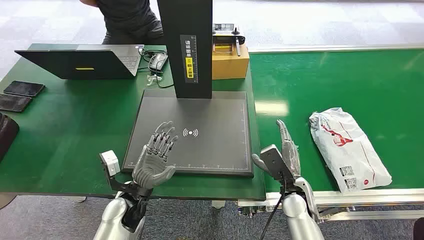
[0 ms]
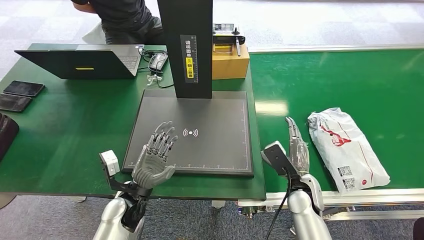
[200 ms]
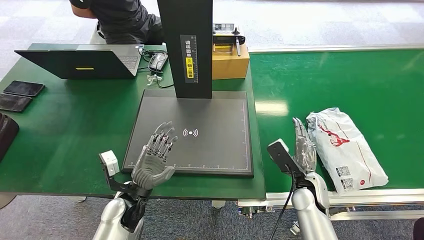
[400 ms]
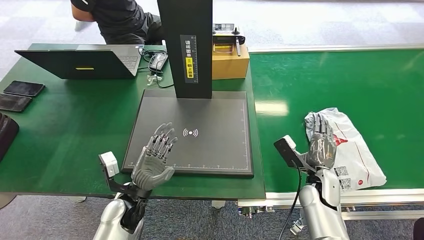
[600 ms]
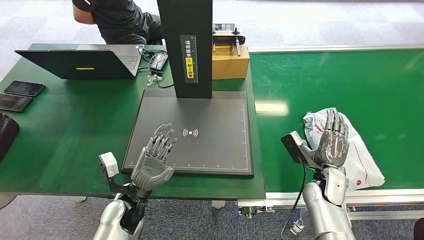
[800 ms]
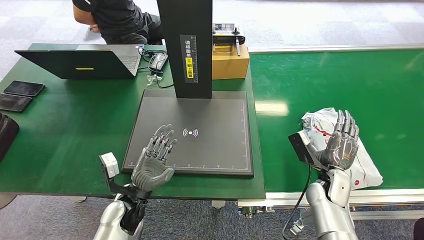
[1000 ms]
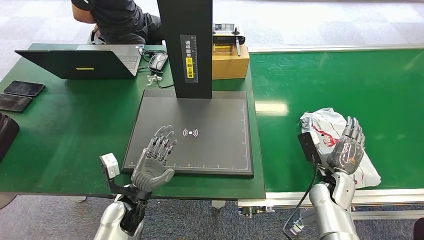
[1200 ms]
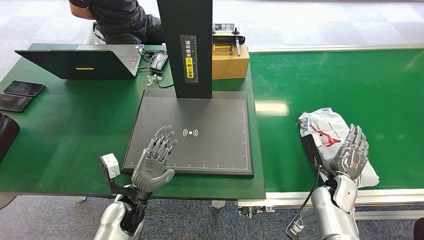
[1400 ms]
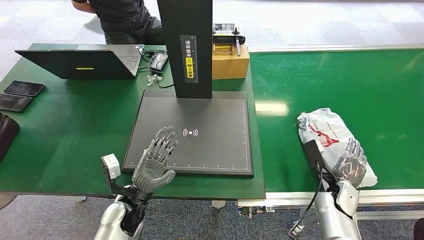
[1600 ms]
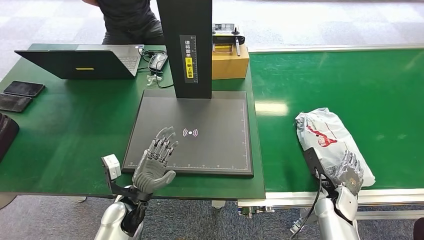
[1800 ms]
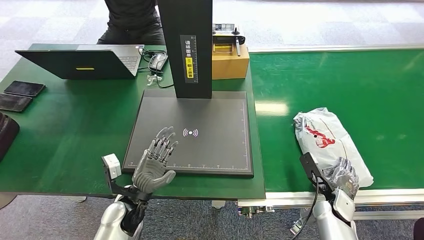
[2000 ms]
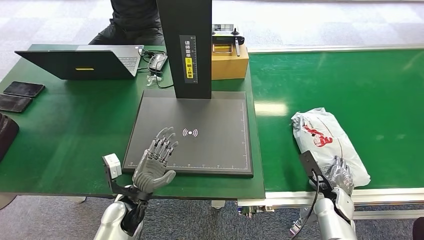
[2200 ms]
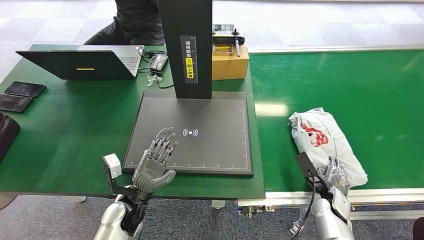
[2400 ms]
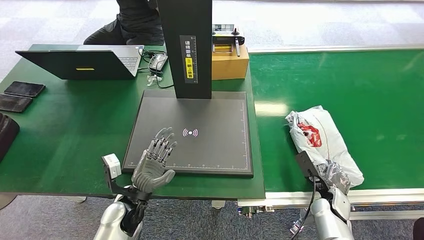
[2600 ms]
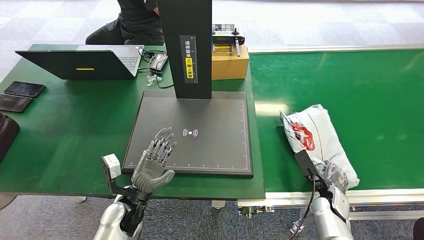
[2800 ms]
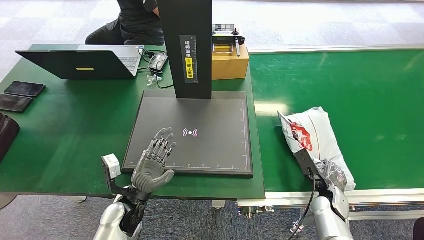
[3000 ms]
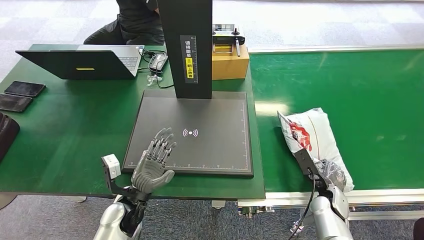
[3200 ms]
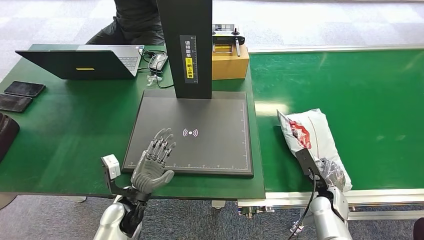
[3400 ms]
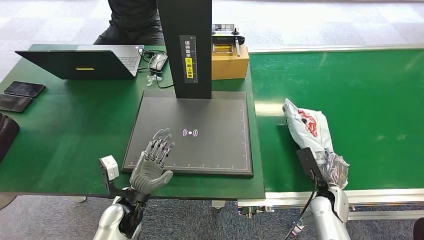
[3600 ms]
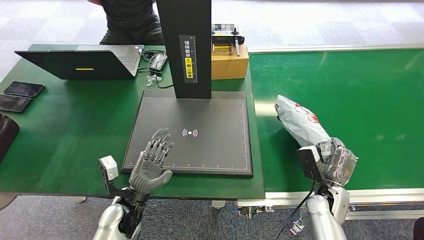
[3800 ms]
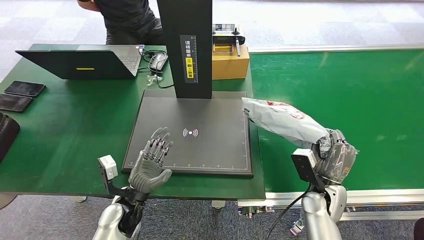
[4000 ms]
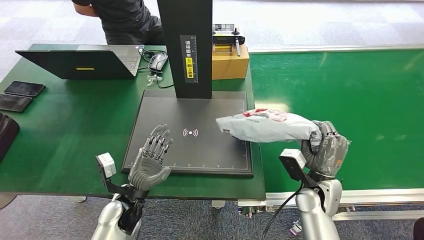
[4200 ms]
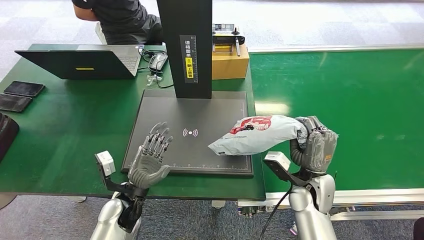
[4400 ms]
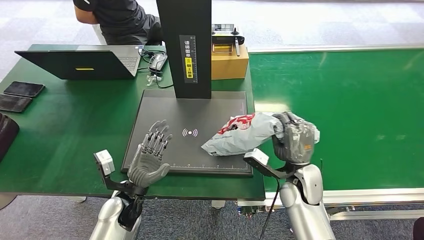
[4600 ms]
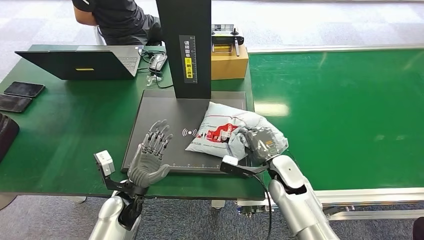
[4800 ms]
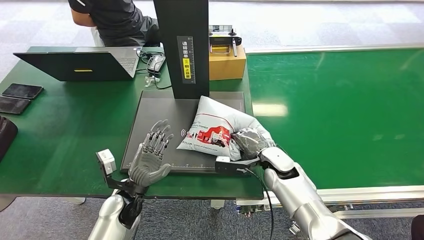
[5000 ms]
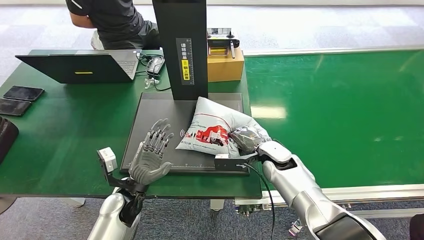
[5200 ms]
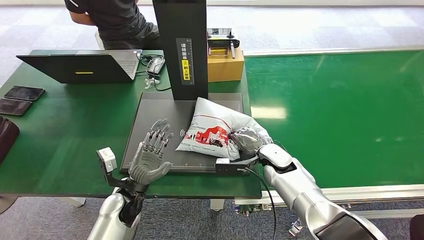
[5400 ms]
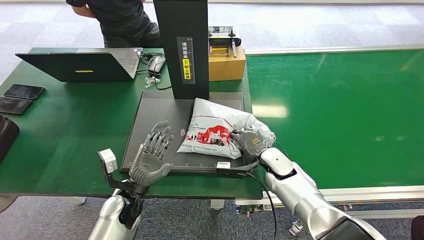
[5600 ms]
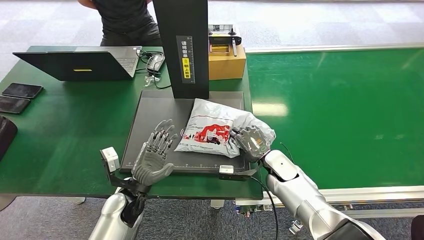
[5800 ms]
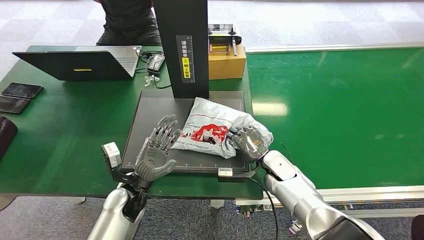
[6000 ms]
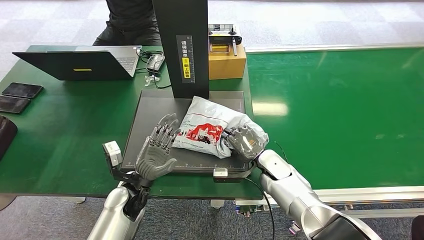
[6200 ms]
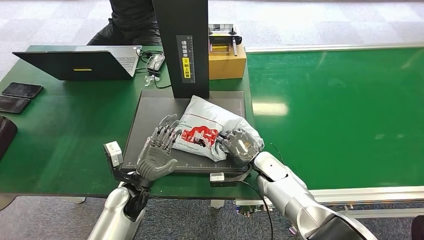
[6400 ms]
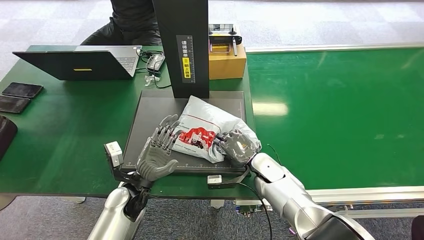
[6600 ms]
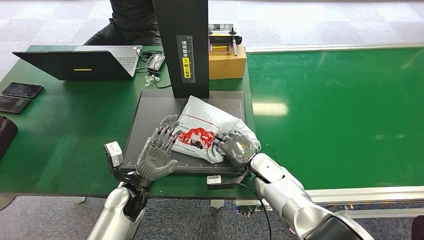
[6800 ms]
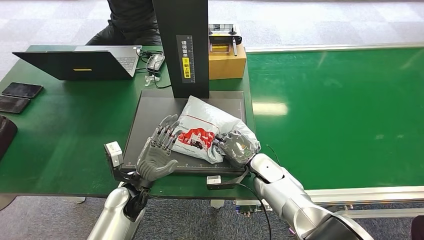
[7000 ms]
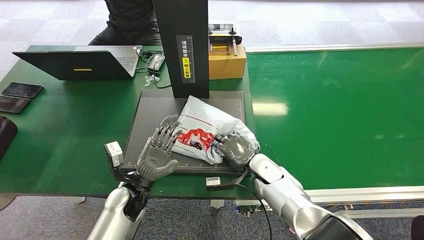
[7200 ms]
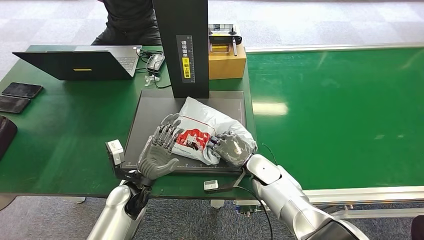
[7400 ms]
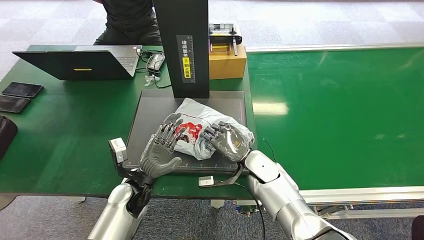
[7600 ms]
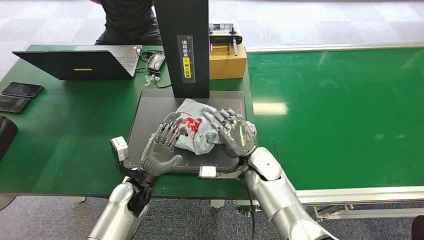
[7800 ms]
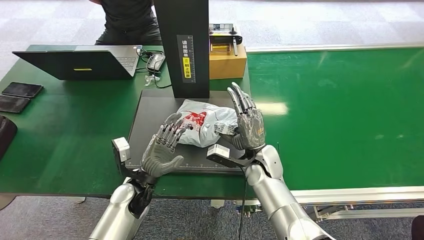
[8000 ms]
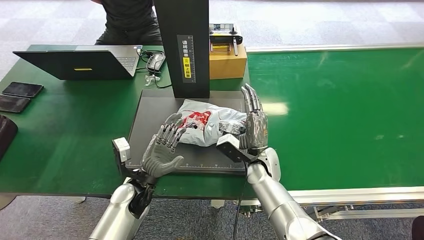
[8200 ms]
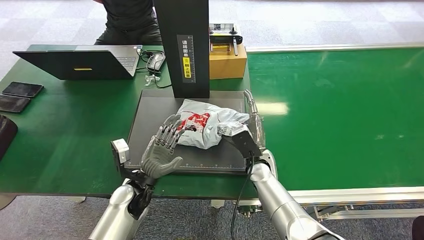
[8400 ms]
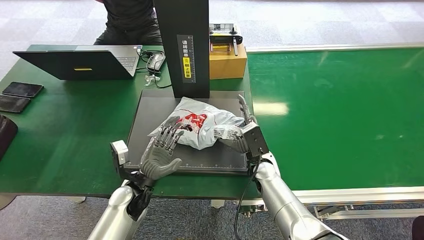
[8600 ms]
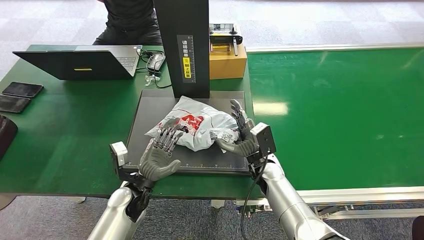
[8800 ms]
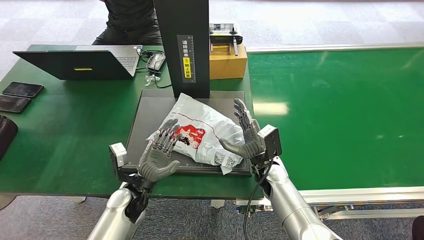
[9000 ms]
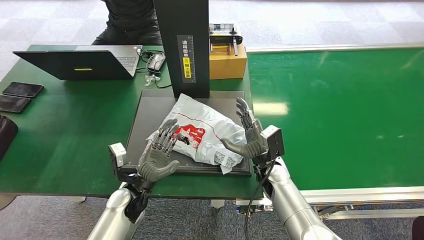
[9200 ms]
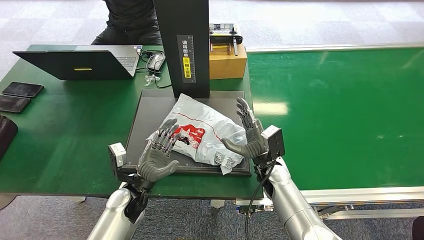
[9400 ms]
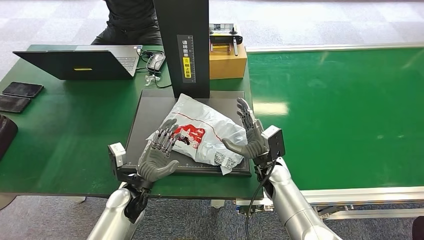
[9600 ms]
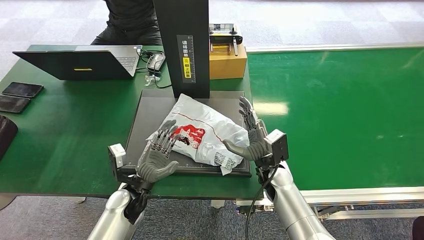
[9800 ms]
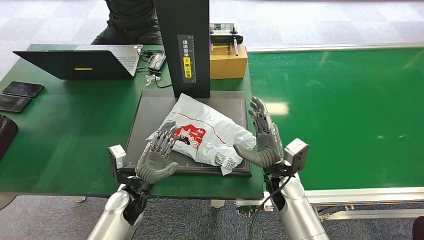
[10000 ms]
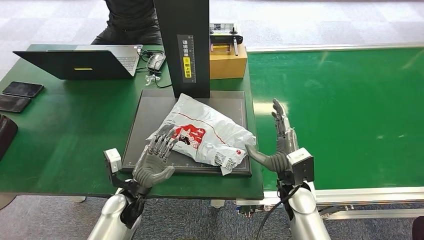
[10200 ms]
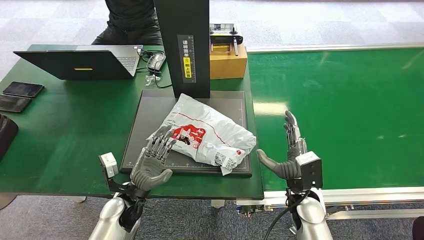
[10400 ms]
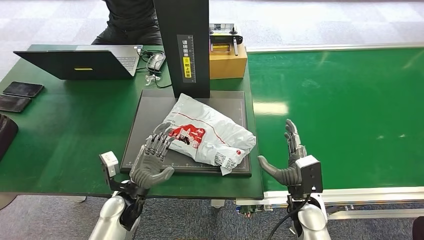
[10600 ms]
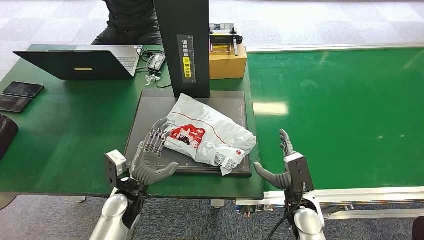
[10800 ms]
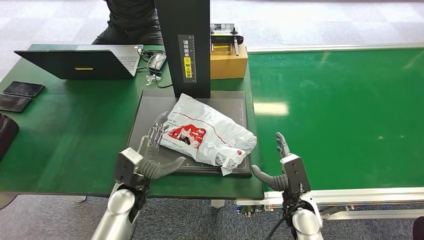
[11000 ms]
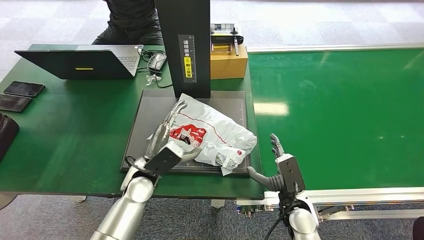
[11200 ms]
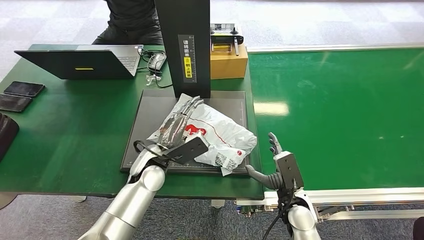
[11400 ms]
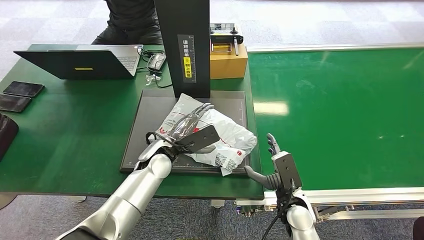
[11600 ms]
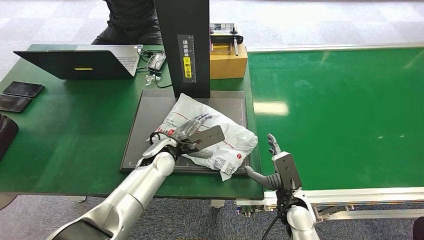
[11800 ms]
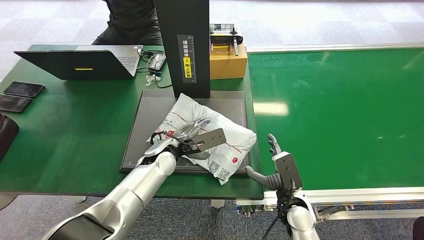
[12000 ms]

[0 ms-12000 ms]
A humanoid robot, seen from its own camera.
Step, 0 ms to 3800 ms: Pick up the package from the conveyor belt.
Step, 4000 ms to 6400 ms: Place the package onto the inbound machine.
3000 ms to 4400 ms: The right hand travels upward and to the left by some 15 cm.
6000 ms to 7600 ms: The right hand is displaced to the left by about 5 cm.
9000 ms to 10400 ms: The right hand moves backward and to the right, roughly 10 cm.
10400 ms to 12000 ms: The left hand moves forward, to the right and upward, roughly 15 cm.

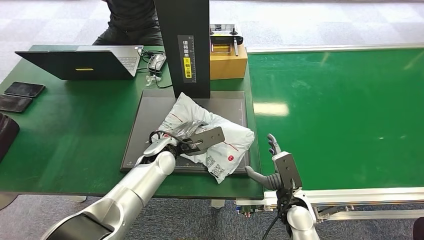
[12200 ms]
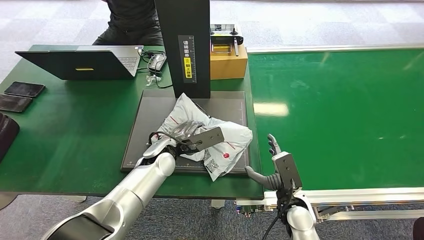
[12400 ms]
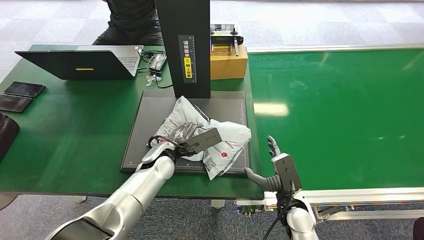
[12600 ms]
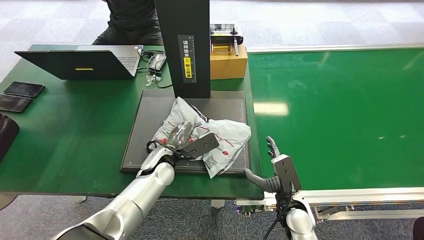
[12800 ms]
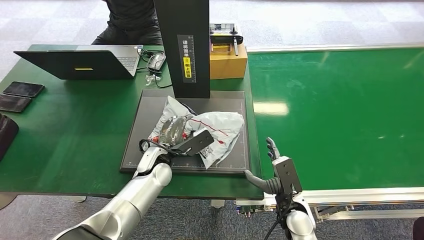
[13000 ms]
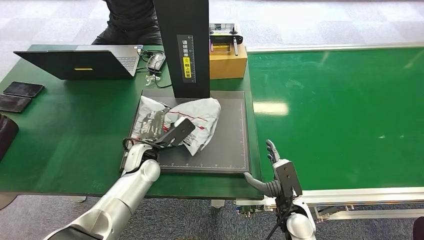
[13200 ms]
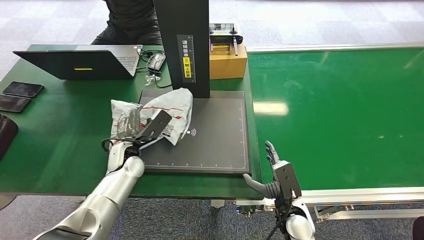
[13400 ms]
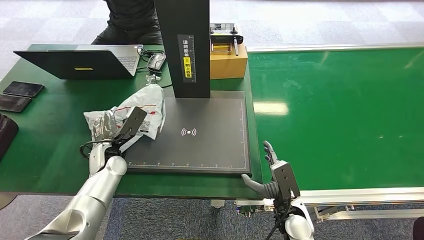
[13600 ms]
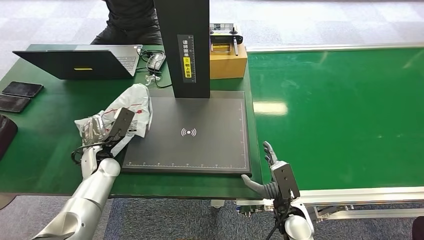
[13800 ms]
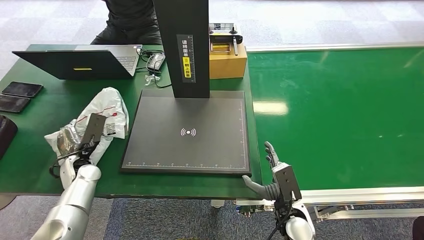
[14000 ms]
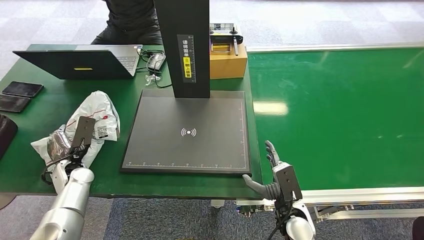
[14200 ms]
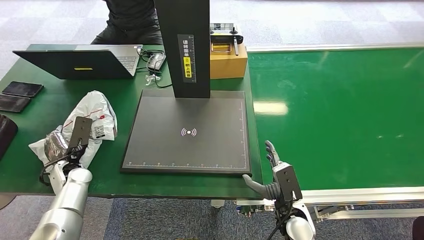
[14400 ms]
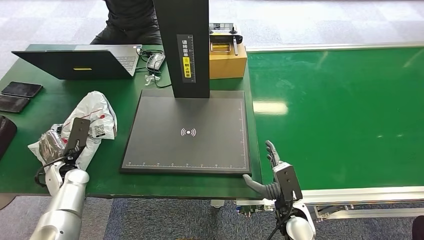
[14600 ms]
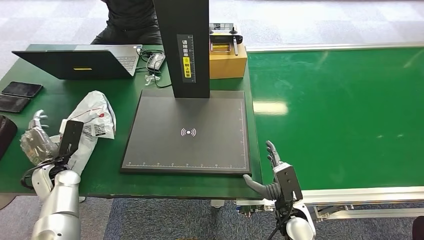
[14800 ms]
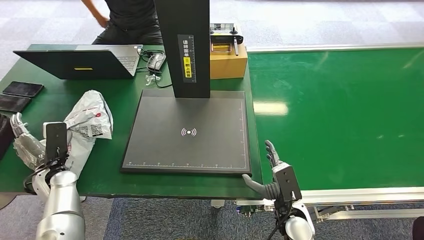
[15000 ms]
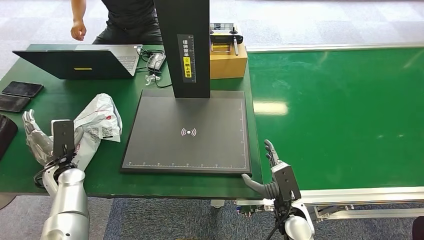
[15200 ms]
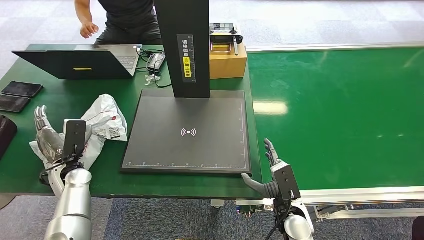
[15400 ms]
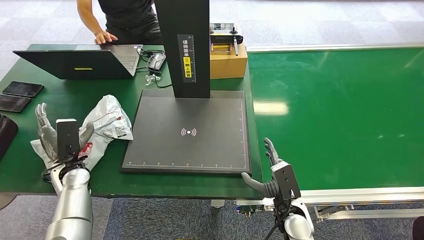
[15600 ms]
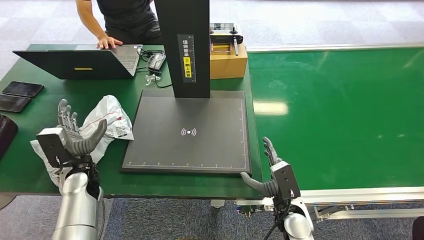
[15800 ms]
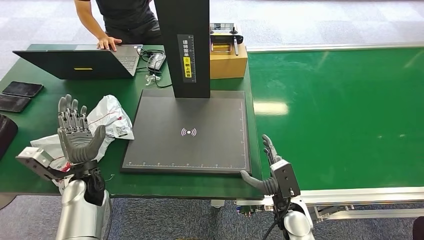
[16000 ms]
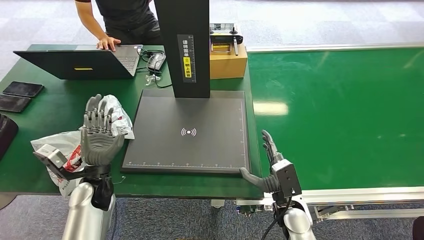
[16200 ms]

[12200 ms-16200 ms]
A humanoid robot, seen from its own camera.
Step, 13800 ms to 16200 ms: Place the package into the parcel locker.
12200 ms to 13600 ms: The left hand goes approximately 15 cm to the left.
13600 ms to 14800 ms: The left hand goes approximately 10 cm to the left.
14800 ms to 16200 ms: The left hand moves to the right, some 10 cm.

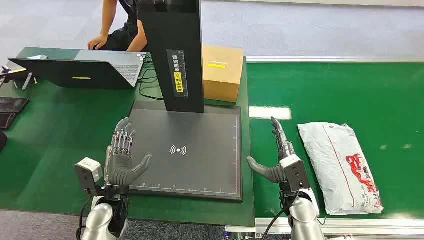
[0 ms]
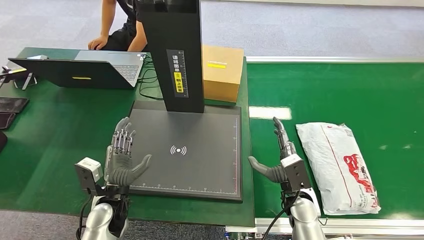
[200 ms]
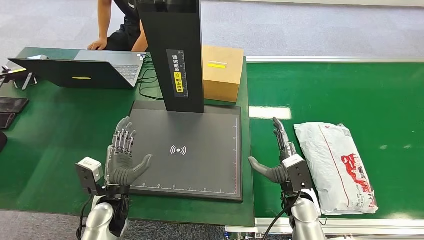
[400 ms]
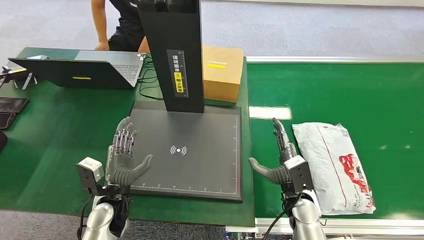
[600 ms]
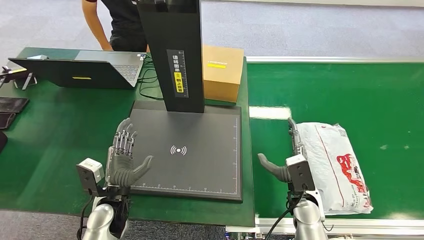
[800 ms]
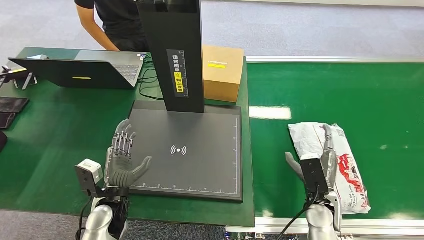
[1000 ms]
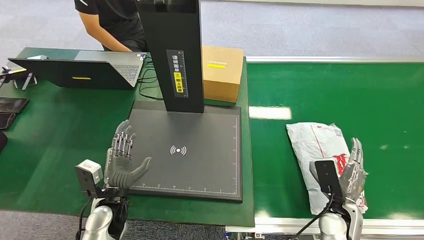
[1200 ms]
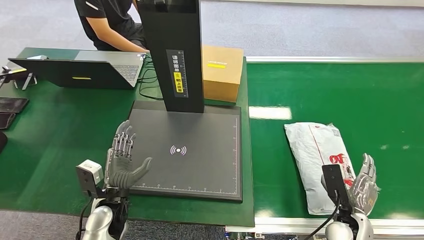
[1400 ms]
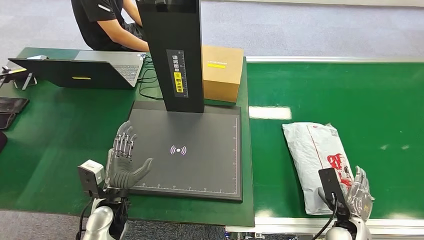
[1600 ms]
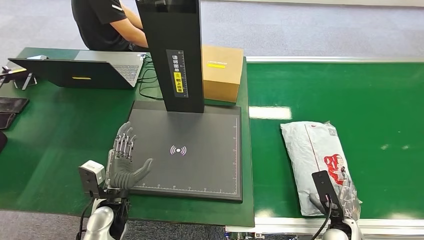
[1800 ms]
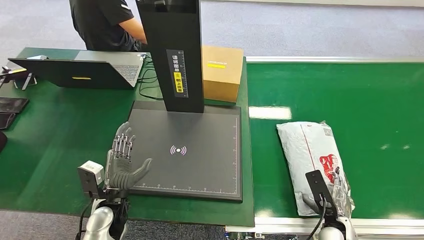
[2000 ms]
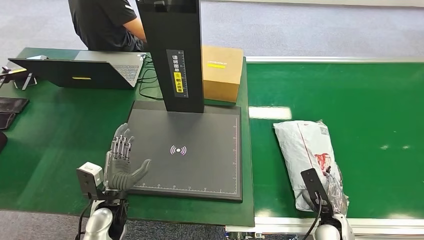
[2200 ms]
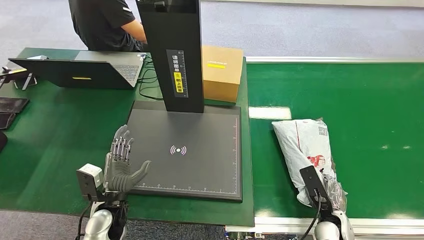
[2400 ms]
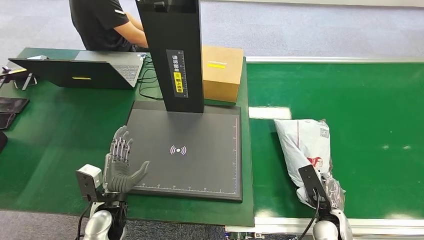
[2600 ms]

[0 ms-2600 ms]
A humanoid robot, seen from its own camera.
1200 ms to 2600 ms: The right hand travels downward by approximately 5 cm.
